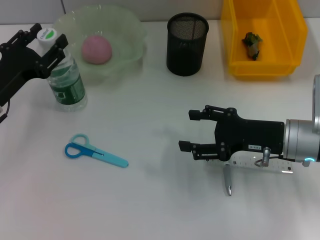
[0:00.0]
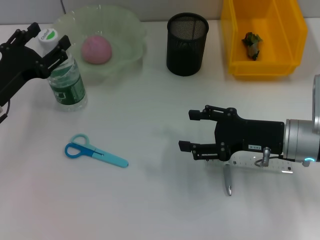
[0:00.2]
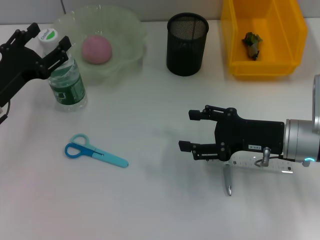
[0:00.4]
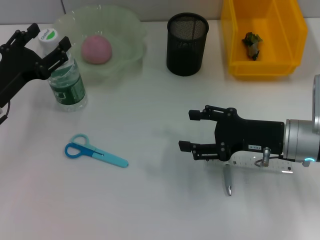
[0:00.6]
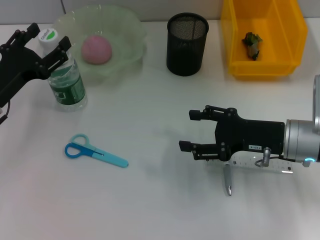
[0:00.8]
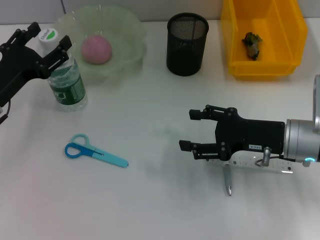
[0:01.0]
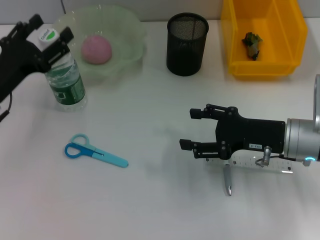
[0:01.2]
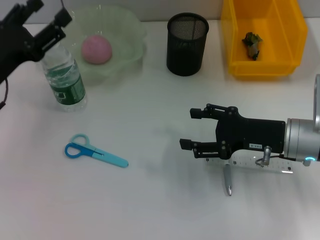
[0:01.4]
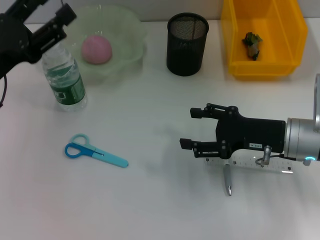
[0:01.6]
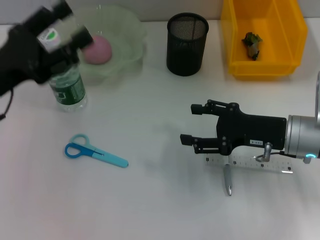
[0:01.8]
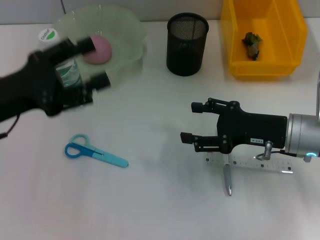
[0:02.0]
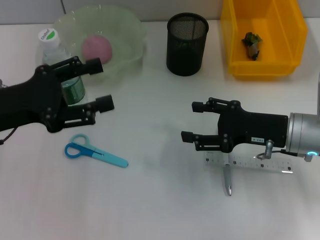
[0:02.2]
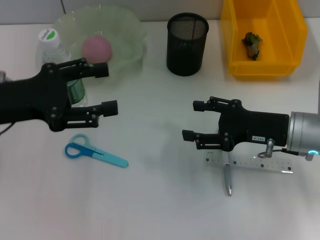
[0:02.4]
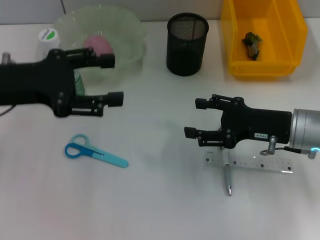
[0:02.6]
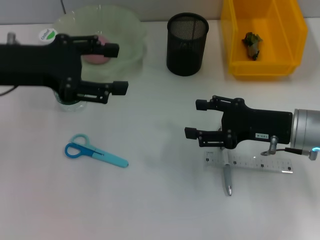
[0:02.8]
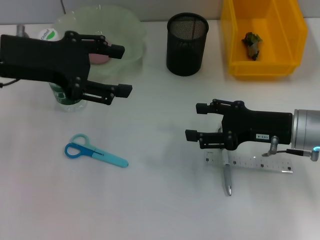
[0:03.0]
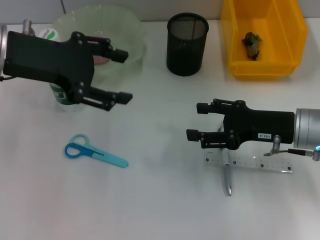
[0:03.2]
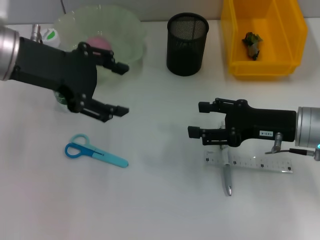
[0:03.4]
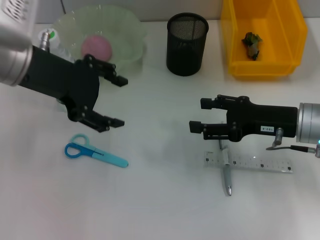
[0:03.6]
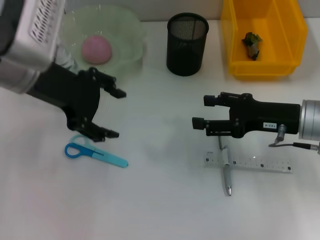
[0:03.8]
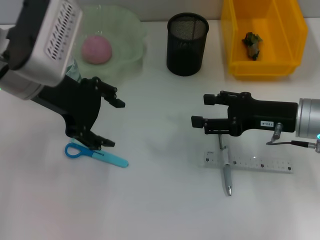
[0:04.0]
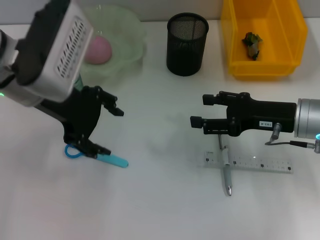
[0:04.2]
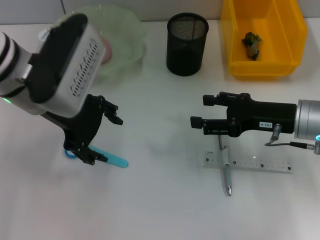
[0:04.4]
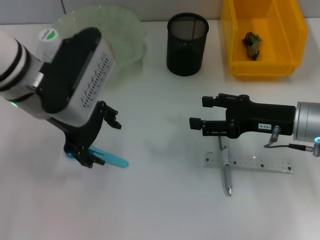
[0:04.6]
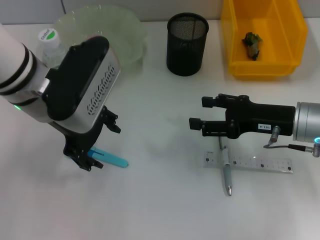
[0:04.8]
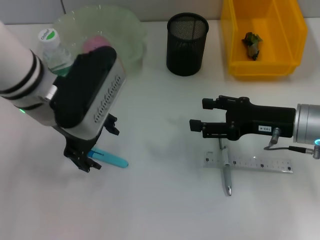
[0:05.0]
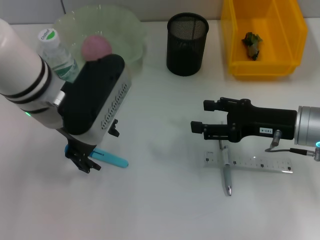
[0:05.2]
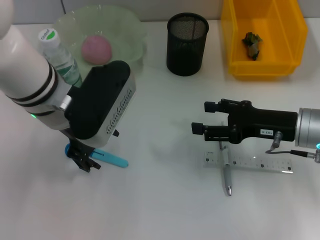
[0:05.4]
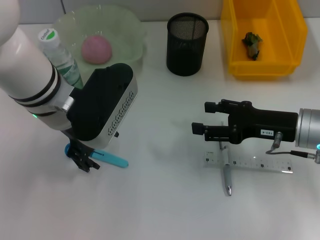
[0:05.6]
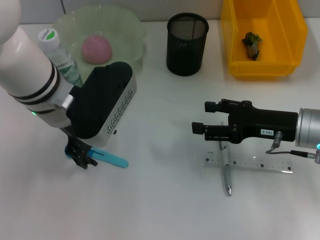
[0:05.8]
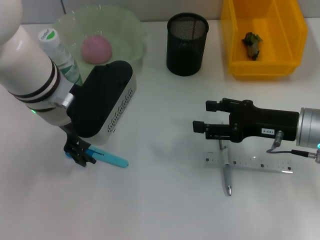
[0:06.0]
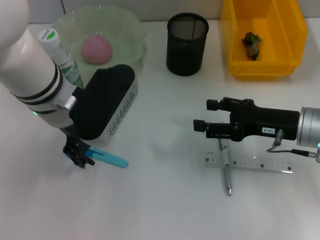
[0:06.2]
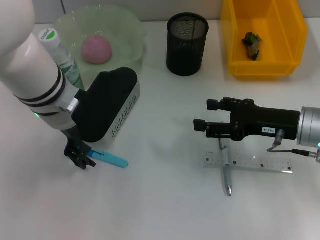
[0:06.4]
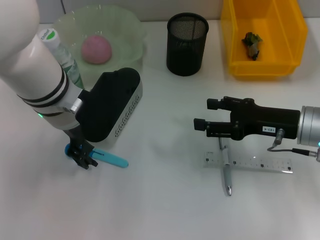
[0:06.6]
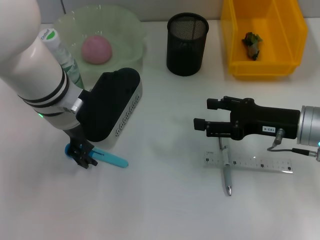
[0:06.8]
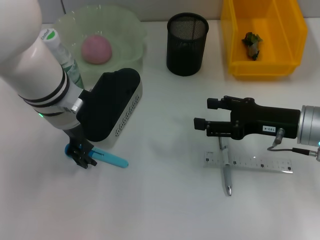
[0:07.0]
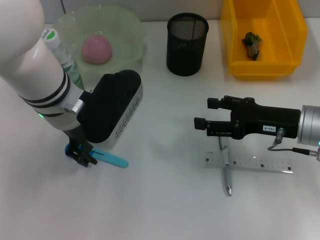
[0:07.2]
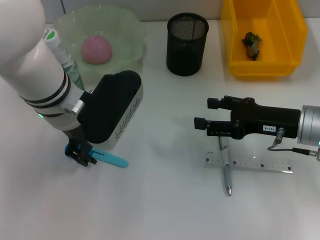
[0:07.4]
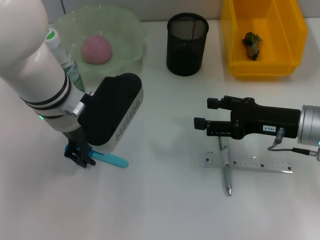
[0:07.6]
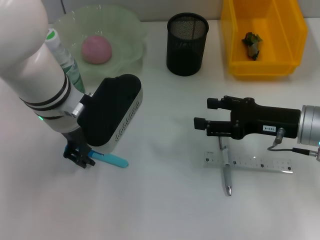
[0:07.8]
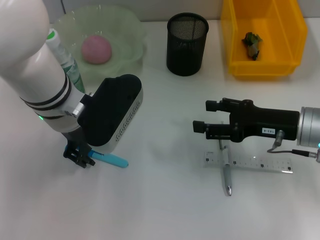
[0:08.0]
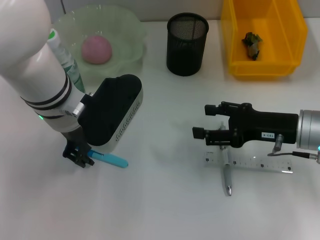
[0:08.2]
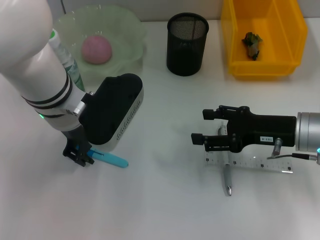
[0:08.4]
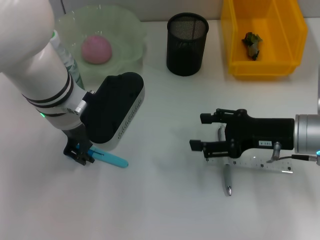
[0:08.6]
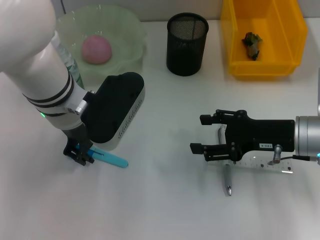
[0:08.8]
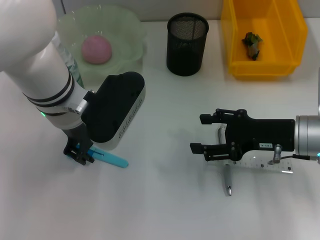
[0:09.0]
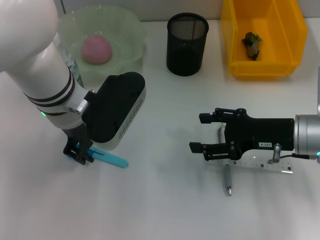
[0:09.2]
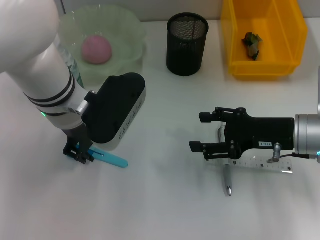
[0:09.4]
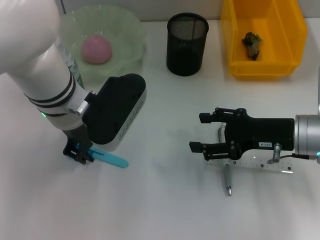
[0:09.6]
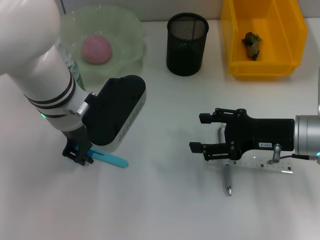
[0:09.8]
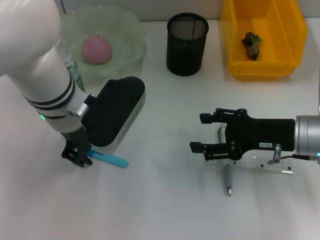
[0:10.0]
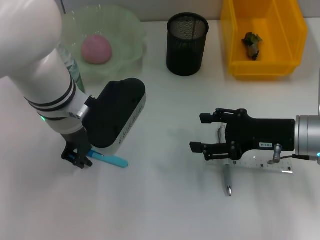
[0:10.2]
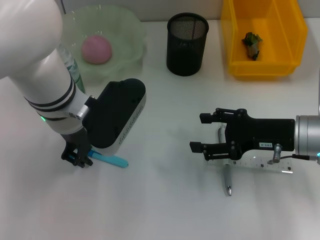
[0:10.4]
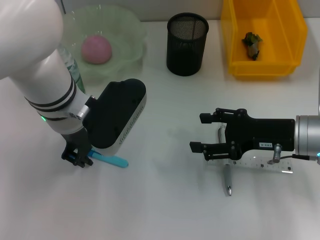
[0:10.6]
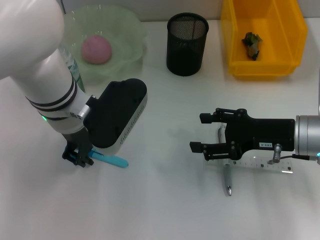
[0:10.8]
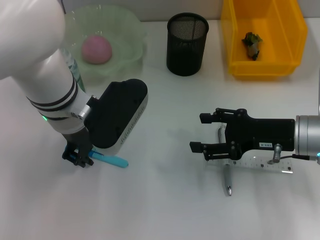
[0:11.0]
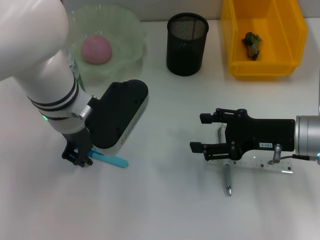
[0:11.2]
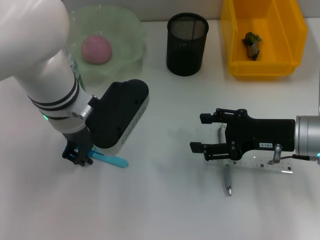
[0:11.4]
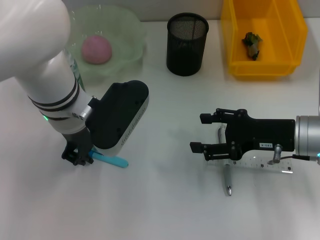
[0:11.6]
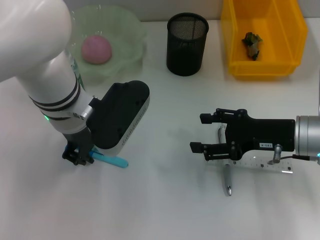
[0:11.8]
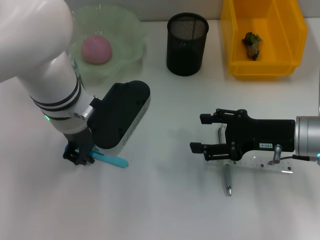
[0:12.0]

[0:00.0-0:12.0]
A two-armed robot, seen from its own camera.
0:00.0 to 0:01.6: The left gripper moves approximately 5 cm.
0:01.6 to 0:03.0: The left gripper is displaced upward by roughly 10 cm.
0:03.0 to 0:04.4: The left gripper travels to the right by approximately 5 cm.
0:04.4 to 0:07.6: The grippers make only small movements.
0:07.6 to 0:09.0: The grippers make only small movements.
0:09.0 to 0:12.0: Neither gripper changes place.

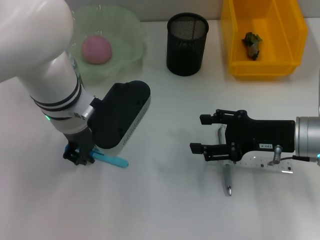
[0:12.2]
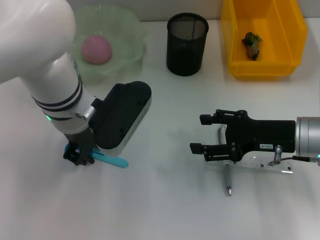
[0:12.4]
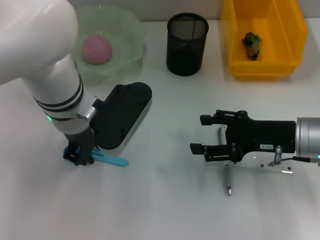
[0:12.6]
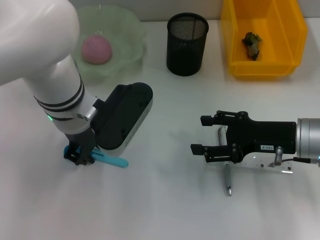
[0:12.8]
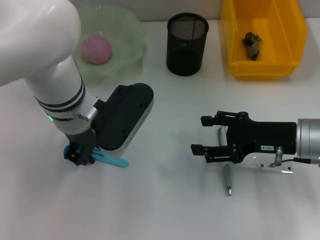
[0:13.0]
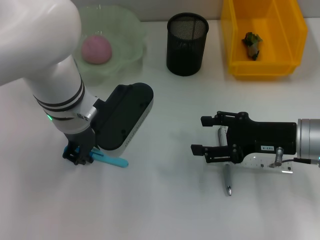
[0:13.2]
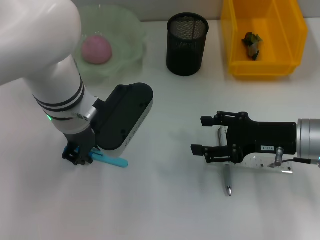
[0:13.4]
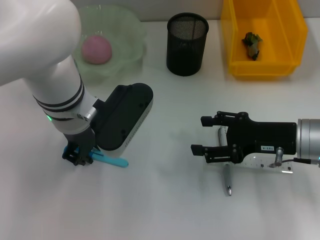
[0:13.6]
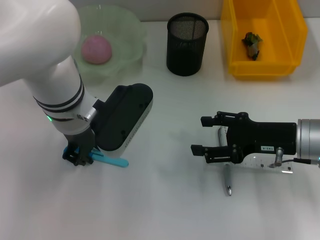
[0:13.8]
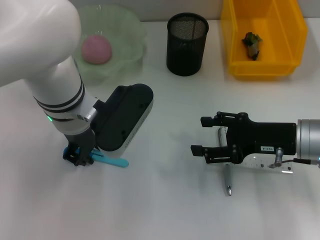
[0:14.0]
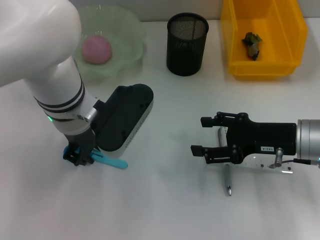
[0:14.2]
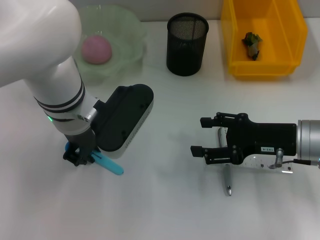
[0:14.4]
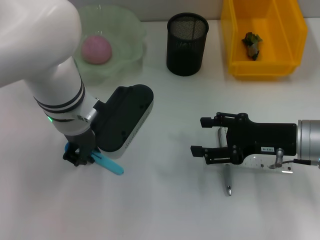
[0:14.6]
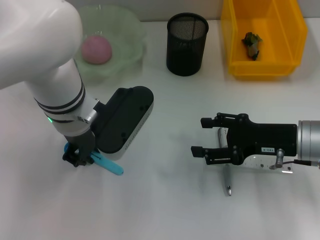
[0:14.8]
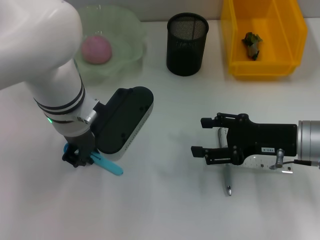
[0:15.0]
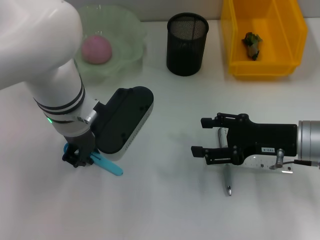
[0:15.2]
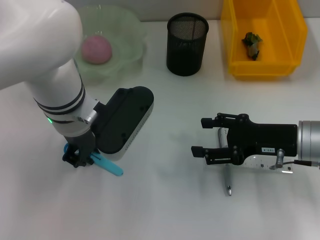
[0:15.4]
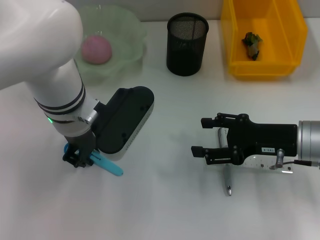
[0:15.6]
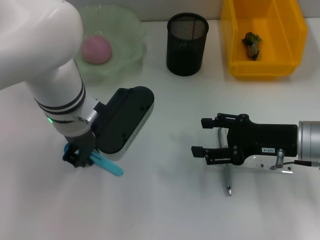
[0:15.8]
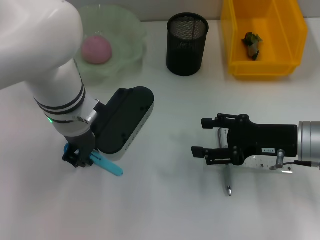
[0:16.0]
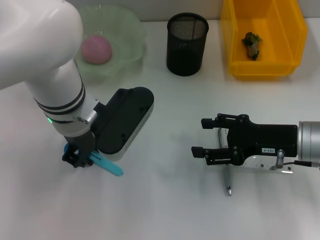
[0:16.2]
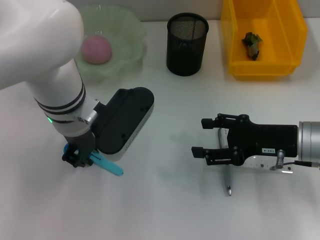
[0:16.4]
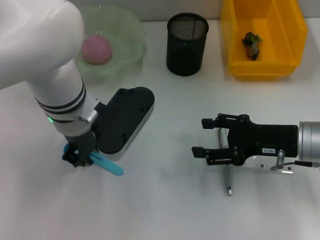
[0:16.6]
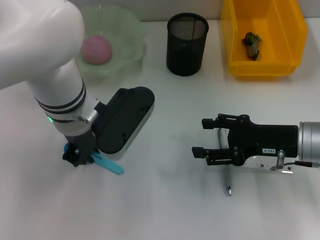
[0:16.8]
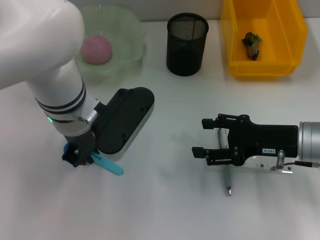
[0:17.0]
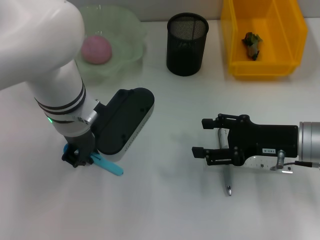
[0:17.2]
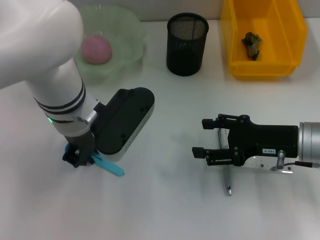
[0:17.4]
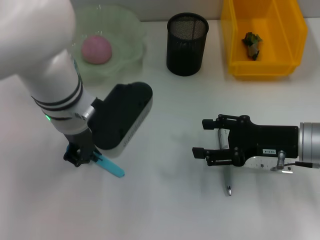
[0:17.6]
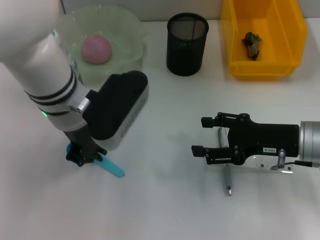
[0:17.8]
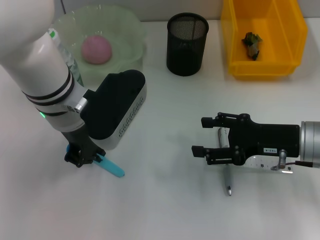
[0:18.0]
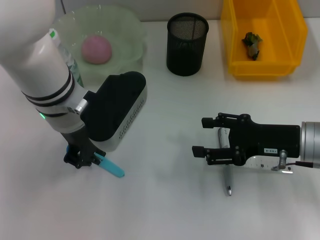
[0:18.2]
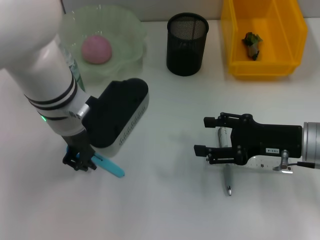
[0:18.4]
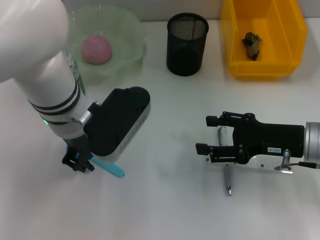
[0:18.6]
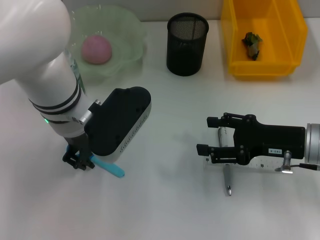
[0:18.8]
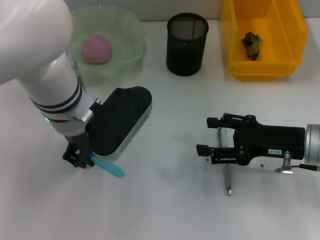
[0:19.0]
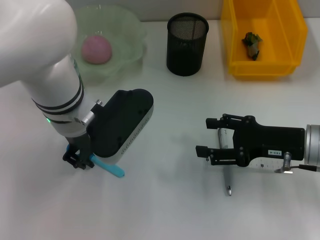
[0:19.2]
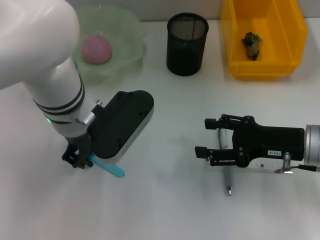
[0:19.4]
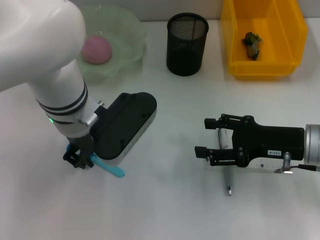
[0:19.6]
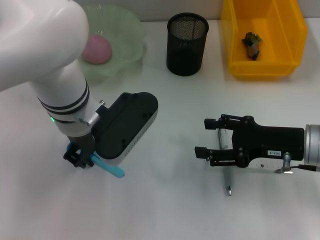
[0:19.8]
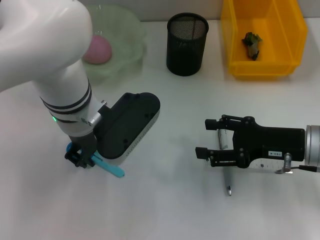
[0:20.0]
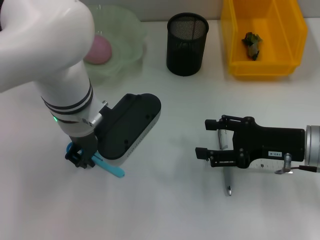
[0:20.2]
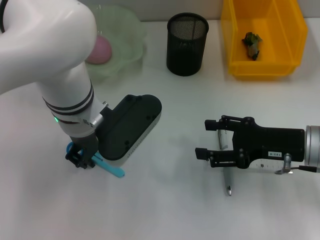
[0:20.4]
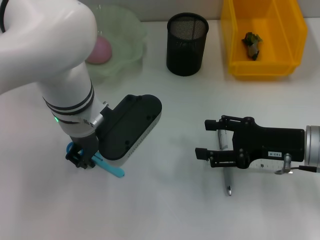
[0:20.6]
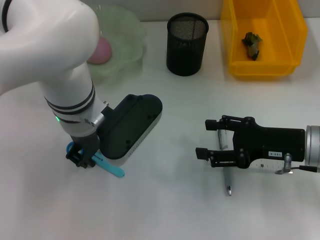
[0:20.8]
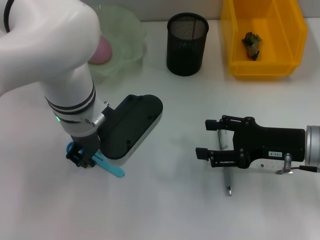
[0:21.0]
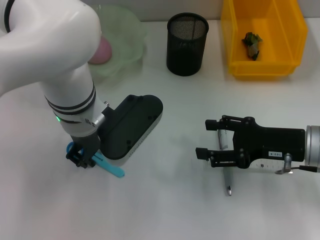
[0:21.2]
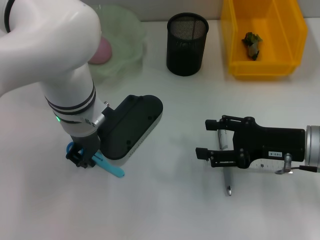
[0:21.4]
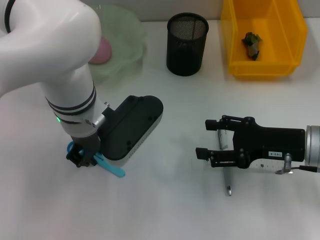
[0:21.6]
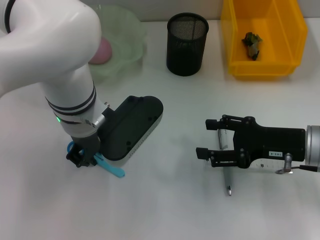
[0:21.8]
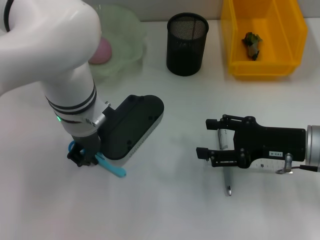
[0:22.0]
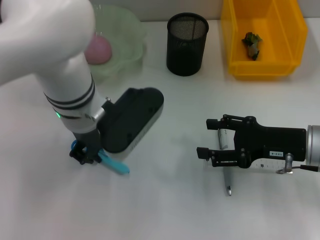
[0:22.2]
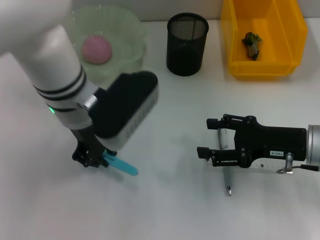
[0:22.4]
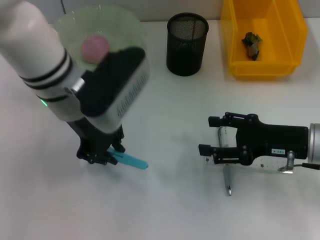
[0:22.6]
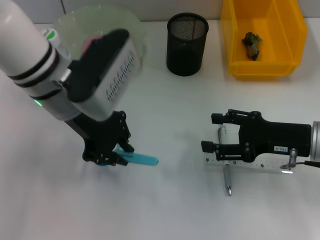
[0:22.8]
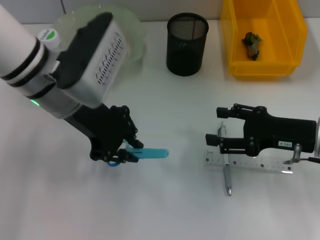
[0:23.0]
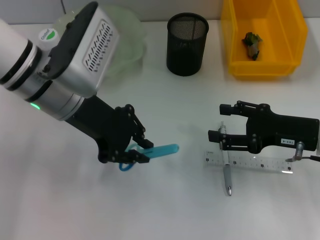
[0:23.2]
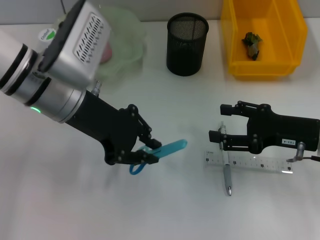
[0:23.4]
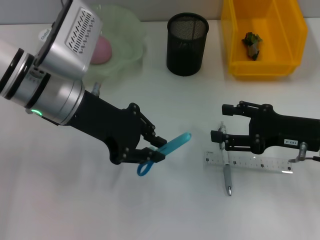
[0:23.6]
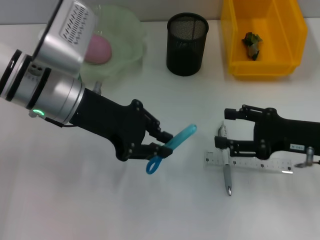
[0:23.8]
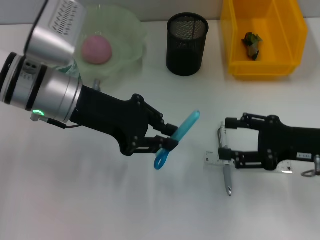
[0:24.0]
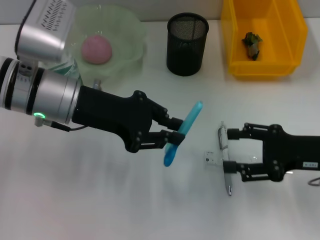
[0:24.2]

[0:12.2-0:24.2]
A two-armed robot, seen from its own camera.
Step, 0:12.2 to 0:22.0: Grab the blue scissors with the left hand.
0:12.2 to 0:16.6: Neither gripper changes place.
0:16.6 to 0:19.8: The grippers move only a little.
0:19.8 to 0:21.2: Both grippers stay about where they are.
0:22.6 to 0:24.2: The left gripper moves some 5 cm.
